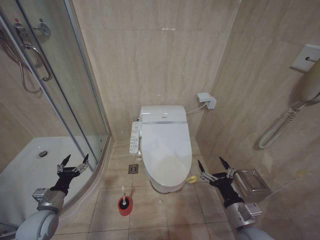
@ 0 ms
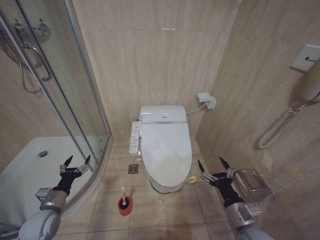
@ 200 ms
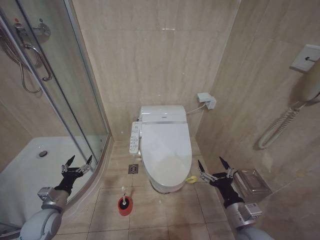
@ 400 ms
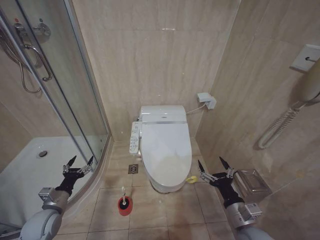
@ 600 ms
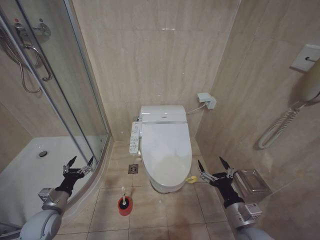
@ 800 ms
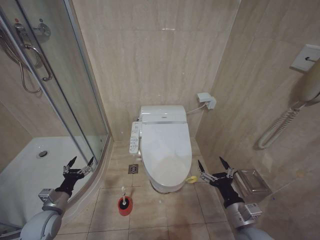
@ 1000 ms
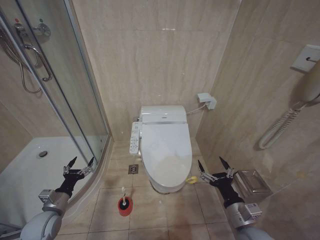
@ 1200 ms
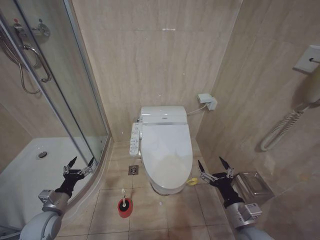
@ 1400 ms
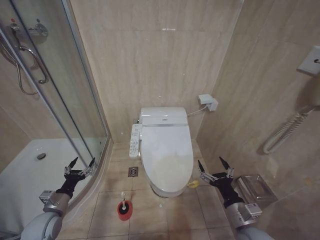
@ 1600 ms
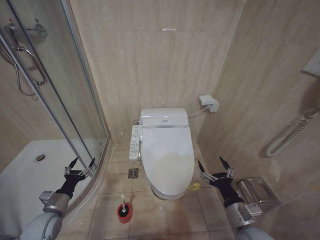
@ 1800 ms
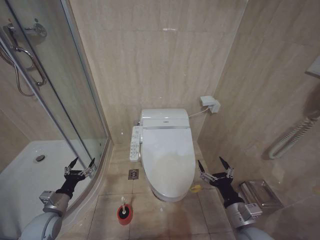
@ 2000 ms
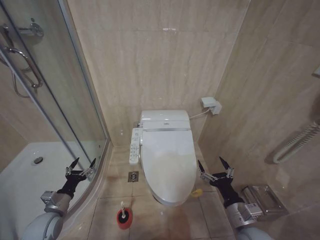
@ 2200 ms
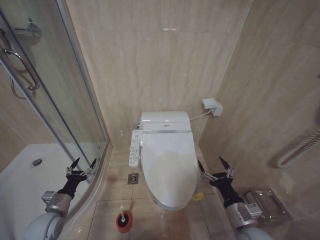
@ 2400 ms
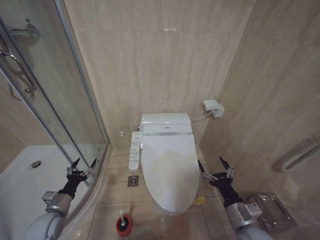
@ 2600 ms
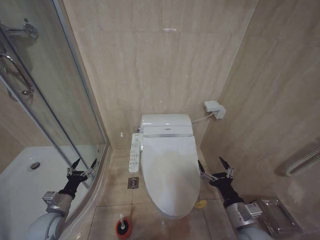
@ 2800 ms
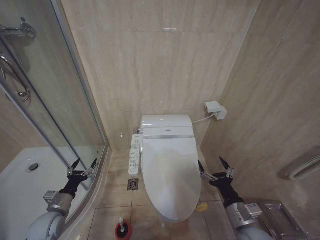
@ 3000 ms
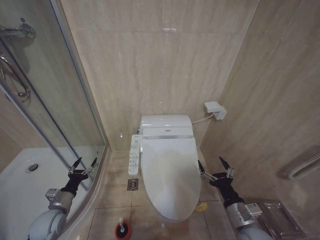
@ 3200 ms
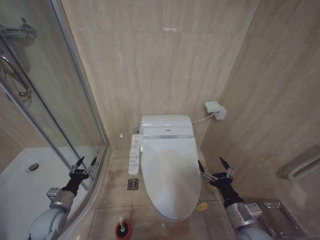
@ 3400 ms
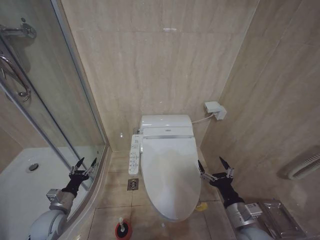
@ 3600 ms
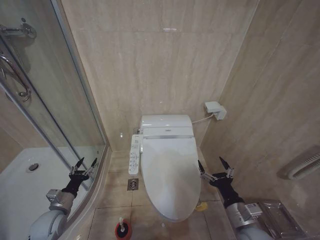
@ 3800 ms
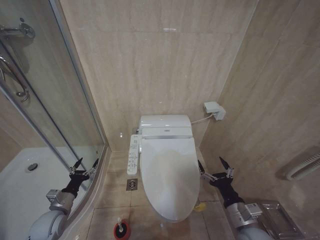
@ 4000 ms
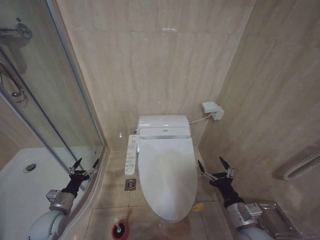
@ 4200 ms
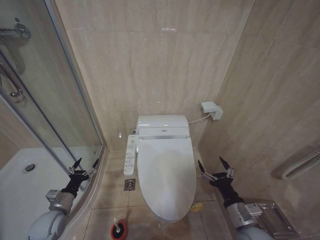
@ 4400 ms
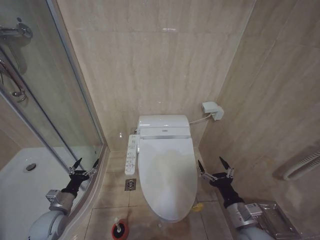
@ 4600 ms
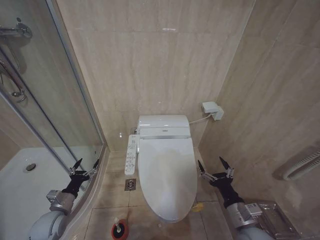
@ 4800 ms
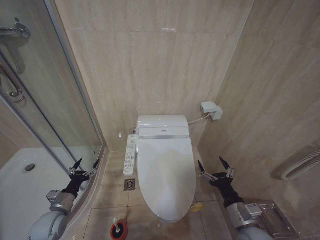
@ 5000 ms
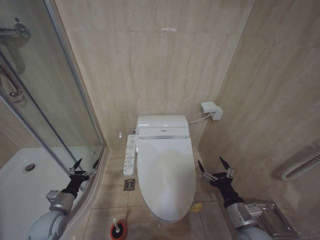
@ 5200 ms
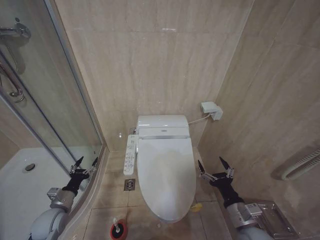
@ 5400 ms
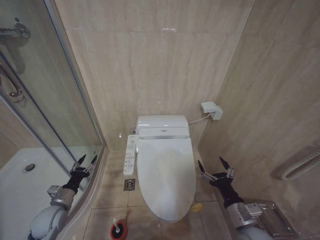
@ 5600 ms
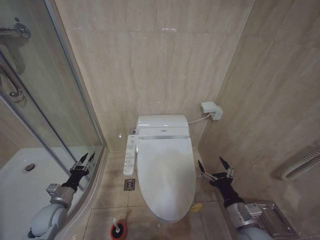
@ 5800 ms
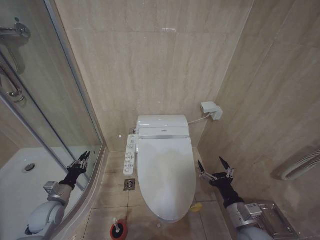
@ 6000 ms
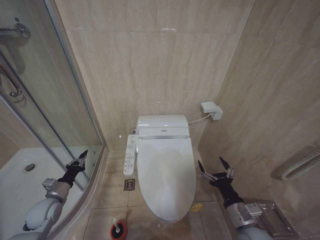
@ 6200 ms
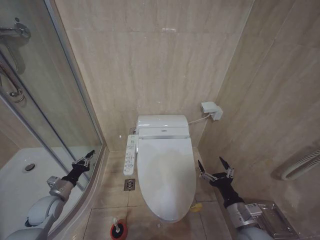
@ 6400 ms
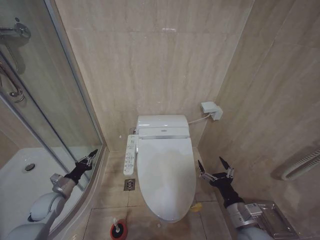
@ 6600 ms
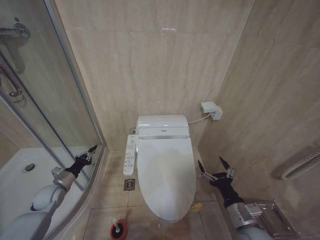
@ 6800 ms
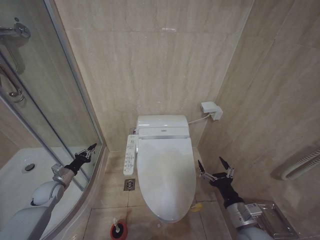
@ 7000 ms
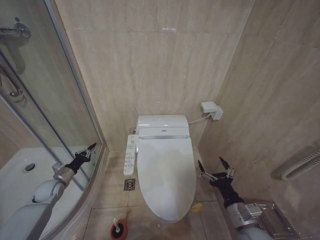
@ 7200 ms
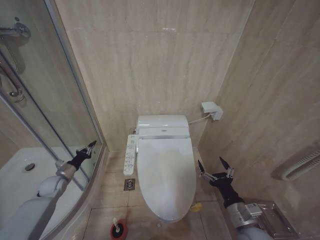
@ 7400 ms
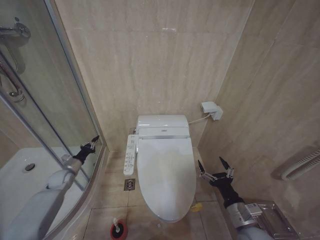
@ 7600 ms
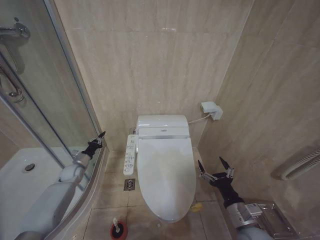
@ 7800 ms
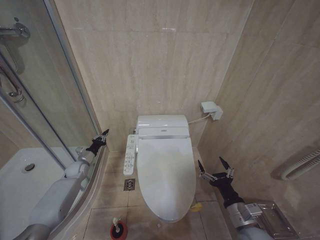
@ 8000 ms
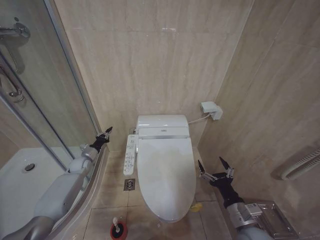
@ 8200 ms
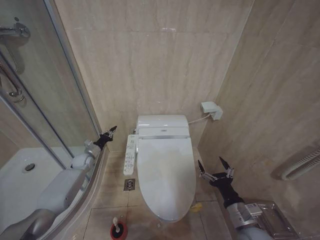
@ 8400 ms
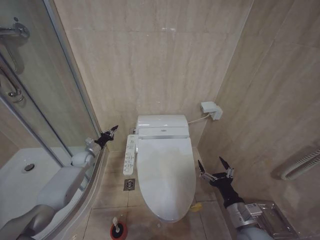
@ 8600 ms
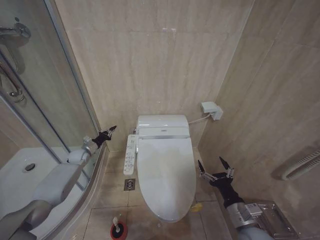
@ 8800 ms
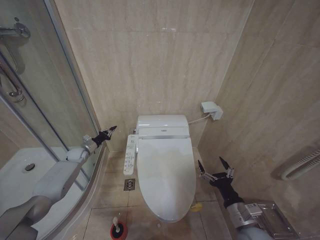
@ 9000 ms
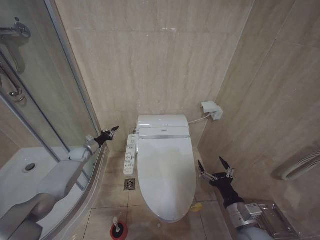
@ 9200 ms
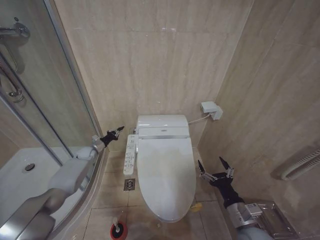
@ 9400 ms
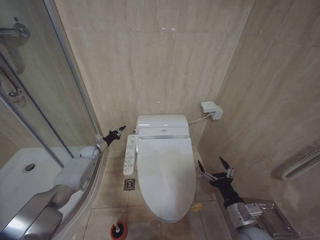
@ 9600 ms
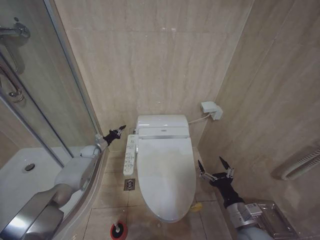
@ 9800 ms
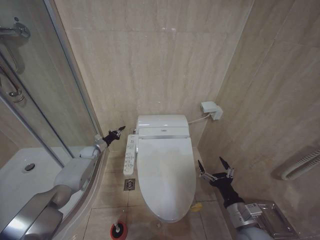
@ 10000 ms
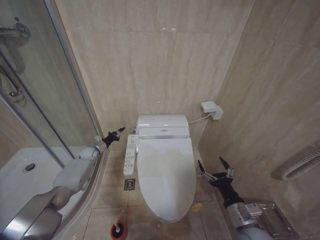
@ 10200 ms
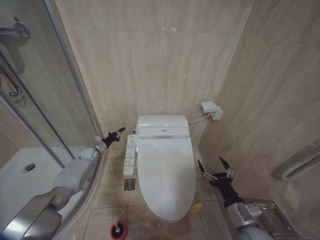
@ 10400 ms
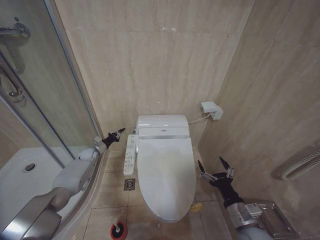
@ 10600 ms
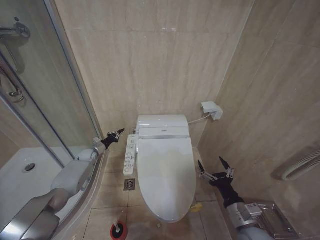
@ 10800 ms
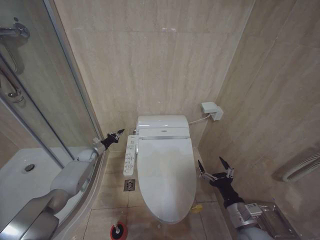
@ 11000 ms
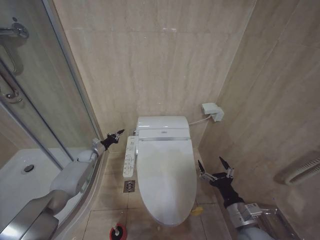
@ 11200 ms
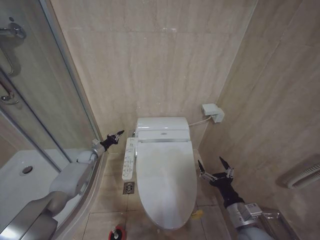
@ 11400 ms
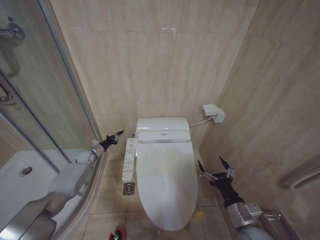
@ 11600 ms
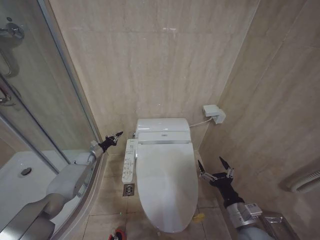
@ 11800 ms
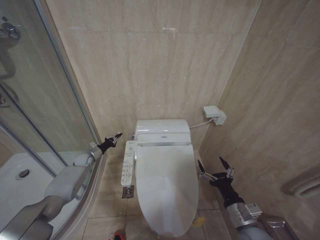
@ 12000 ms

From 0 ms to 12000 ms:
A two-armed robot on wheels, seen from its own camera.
Task of the whole recording: Open the toilet lid, clean the toilet bowl with a toilet brush, close the toilet lid, and flush.
From 0 ms to 3000 ms: The grippers stay close to where they were, moving slightly.
From 3000 ms to 4400 ms: Both grippers stay about where they are.
From 4400 ms to 6000 ms: The left gripper closes its fingers.
From 6000 ms to 7600 ms: The left gripper goes about 15 cm forward.
From 7600 ms to 9000 ms: The left gripper is displaced forward by about 10 cm.
From 9000 ms to 10400 ms: The left gripper ends up approximately 5 cm from where it was.
From 10400 ms to 12000 ms: The grippers make only small movements.

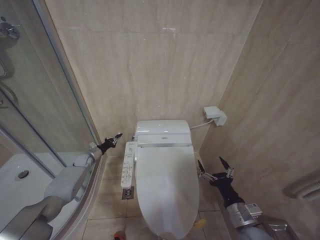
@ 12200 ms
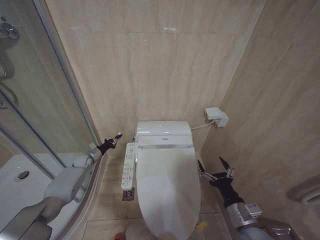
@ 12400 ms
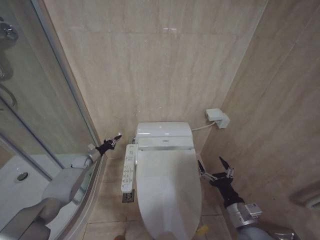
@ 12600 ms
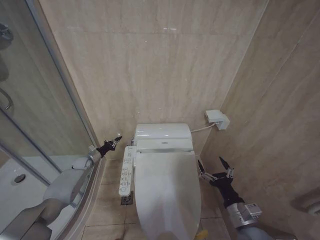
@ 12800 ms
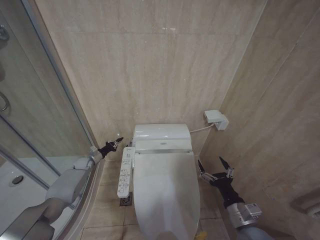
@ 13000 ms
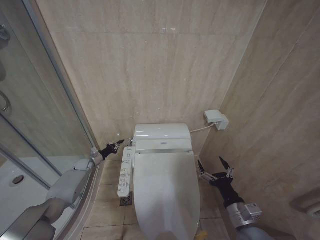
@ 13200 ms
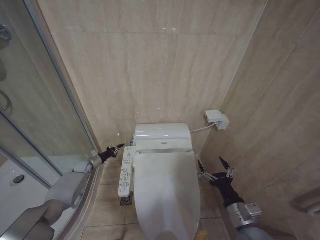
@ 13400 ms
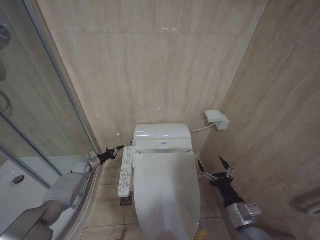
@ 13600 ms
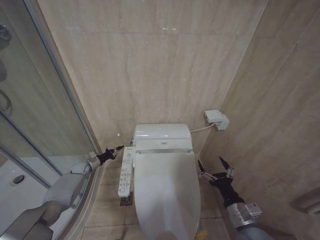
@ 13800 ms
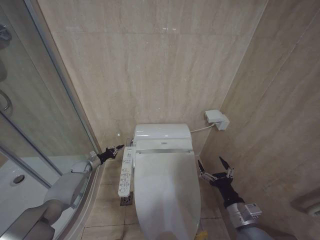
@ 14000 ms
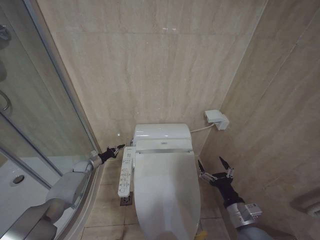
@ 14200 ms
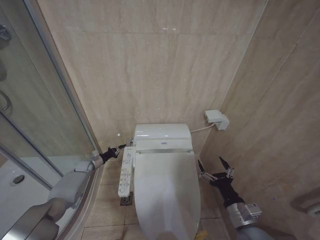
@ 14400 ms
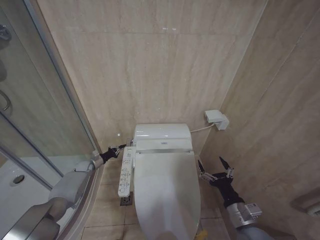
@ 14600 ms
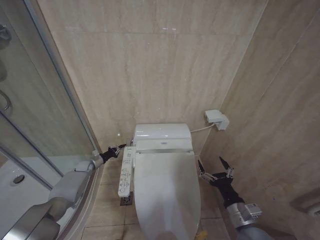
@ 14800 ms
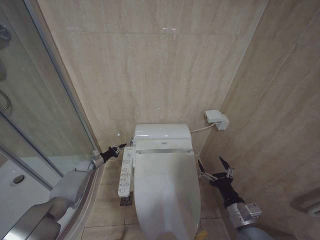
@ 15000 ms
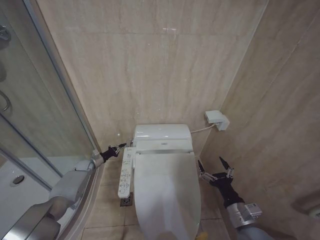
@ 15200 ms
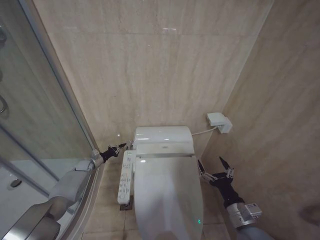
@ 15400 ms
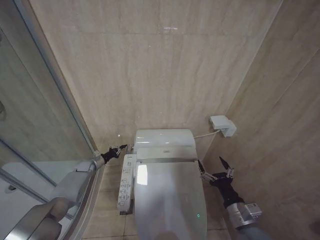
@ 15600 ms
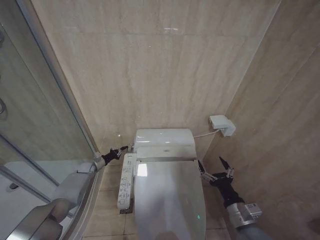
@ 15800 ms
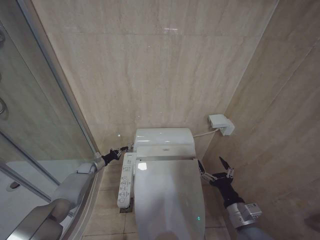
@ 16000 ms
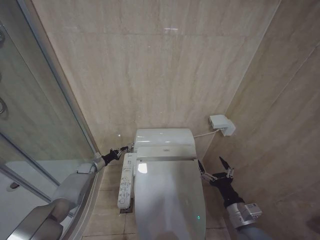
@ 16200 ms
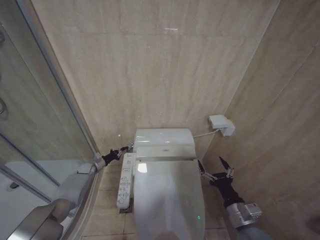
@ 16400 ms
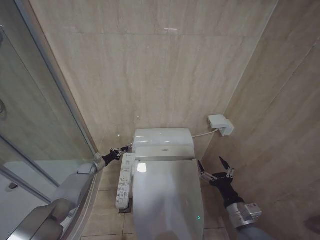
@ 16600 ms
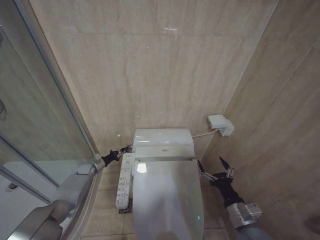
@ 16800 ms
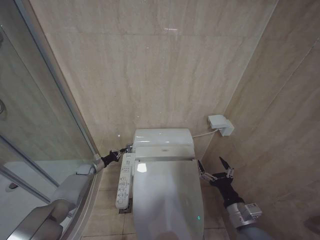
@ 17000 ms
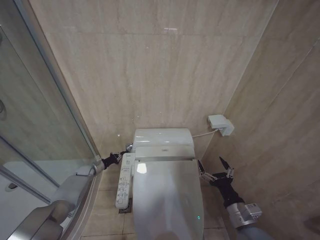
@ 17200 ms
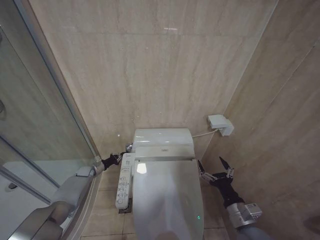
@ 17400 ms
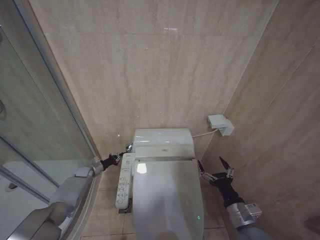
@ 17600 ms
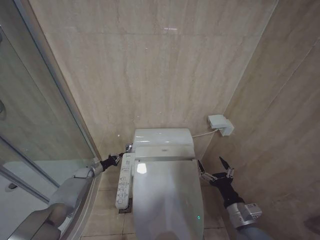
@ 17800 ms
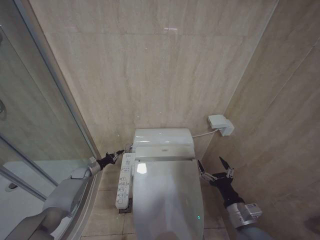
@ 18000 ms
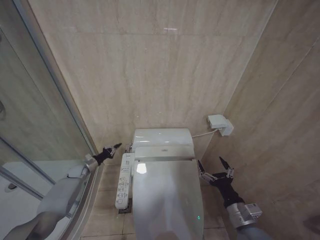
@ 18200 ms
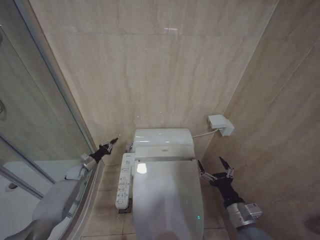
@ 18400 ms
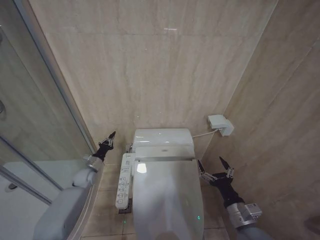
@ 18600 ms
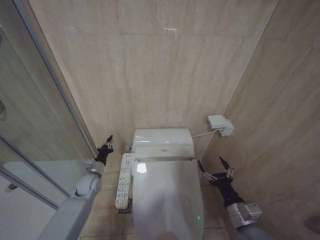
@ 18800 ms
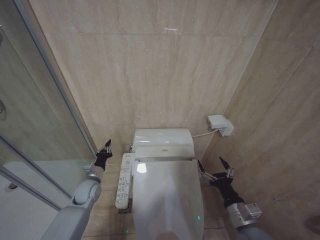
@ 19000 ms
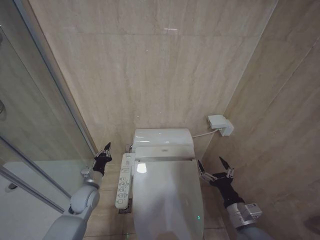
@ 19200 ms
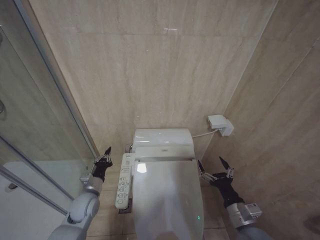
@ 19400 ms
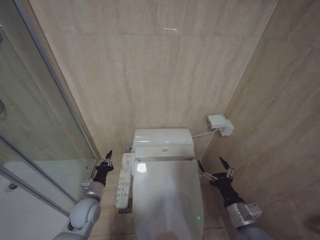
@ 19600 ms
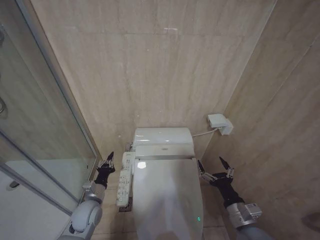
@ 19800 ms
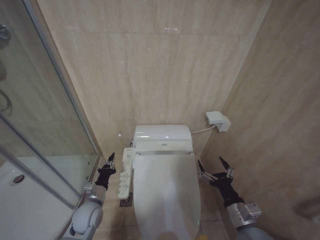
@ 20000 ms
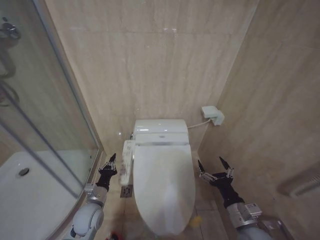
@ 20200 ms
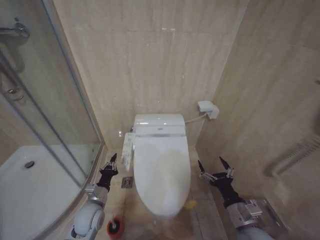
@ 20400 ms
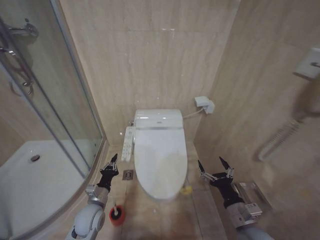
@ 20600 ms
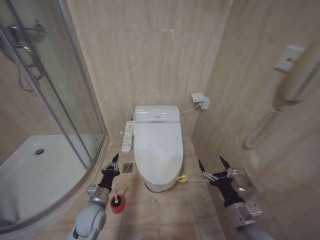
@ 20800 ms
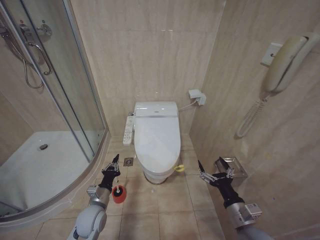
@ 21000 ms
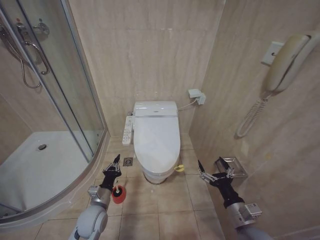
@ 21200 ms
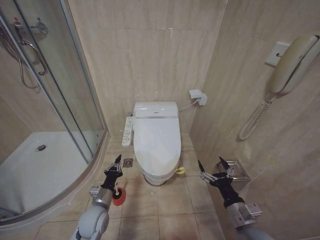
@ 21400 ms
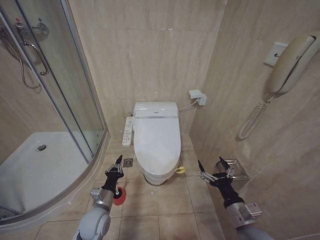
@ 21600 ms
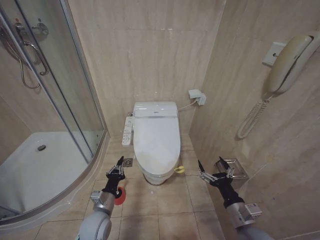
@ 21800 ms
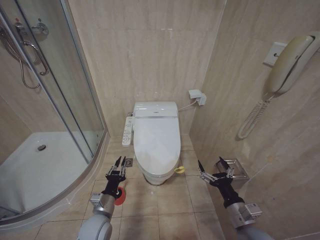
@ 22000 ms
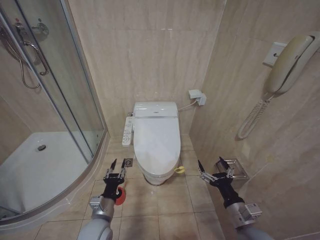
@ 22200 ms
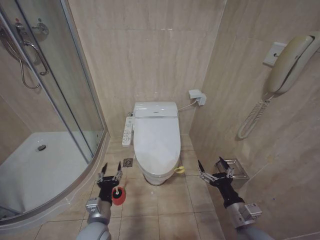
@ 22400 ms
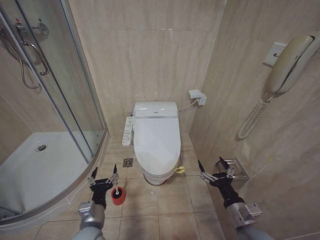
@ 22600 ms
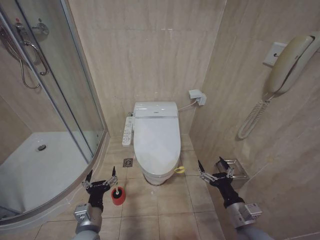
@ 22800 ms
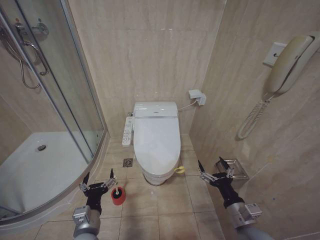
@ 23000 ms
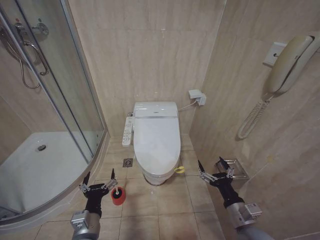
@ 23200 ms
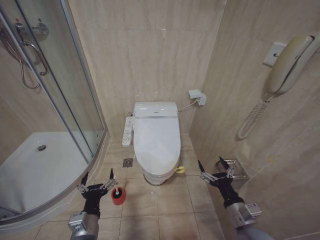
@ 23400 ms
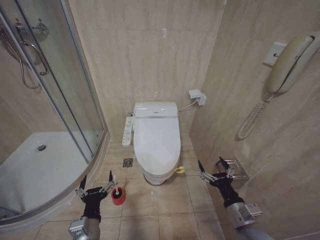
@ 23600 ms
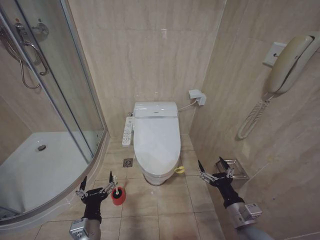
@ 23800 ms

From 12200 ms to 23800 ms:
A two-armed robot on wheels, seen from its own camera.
Task of the whole recording: Open the toilet lid, clean the toilet bowl with a toilet brush, close the toilet lid, and flush.
From 12200 ms to 16600 ms: The grippers move only a little.
From 16600 ms to 18000 ms: The grippers stay close to where they were, moving slightly.
From 18000 ms to 19400 ms: The left gripper moves backward, to the right and upward, roughly 25 cm.
From 19400 ms to 21000 ms: The left gripper is displaced backward by about 5 cm.
From 21000 ms to 22400 ms: The left gripper shifts some 5 cm backward, and opens up.
From 22400 ms to 23800 ms: The left gripper travels backward by approximately 5 cm, and opens.
